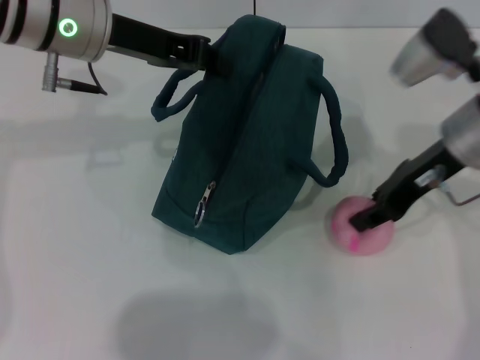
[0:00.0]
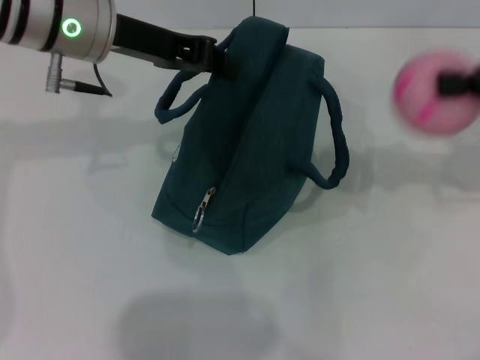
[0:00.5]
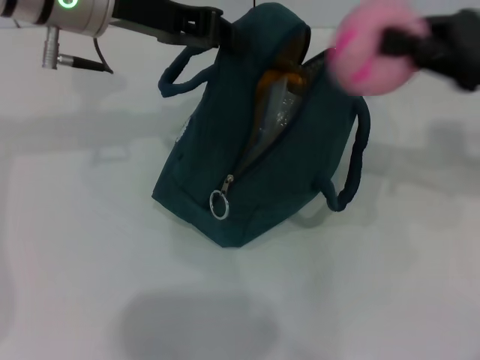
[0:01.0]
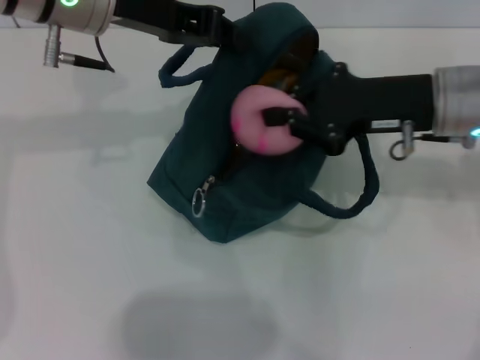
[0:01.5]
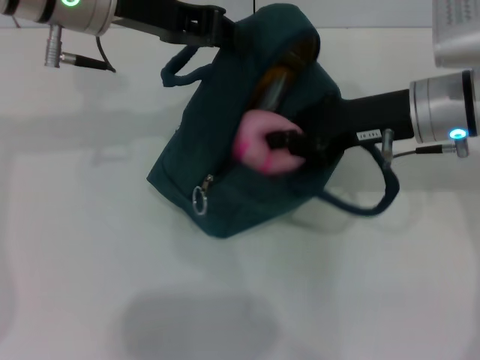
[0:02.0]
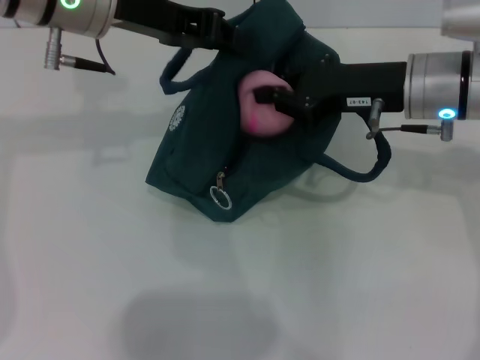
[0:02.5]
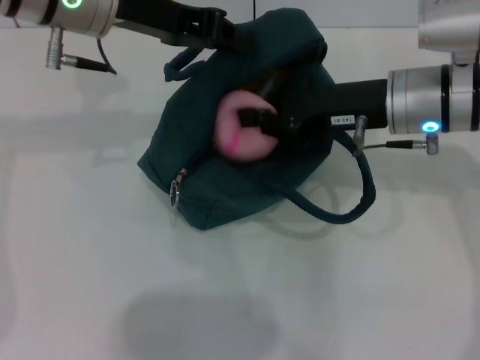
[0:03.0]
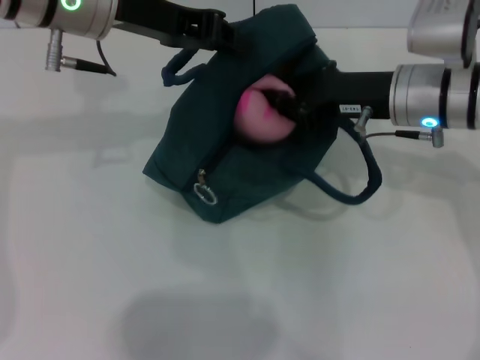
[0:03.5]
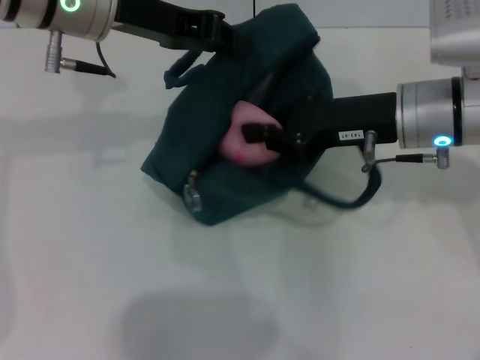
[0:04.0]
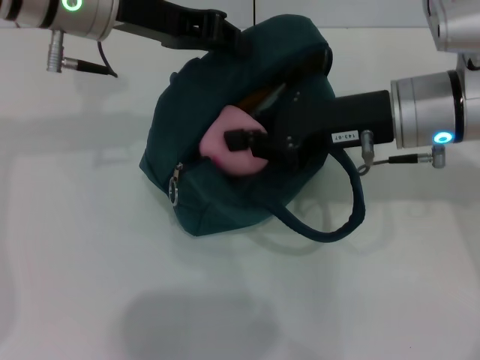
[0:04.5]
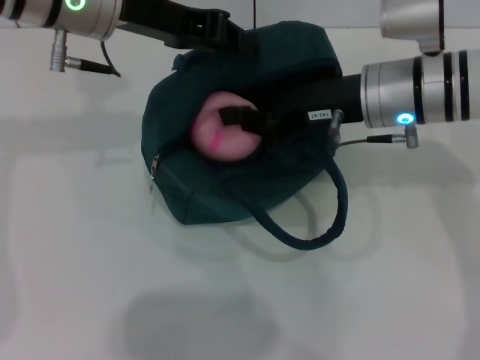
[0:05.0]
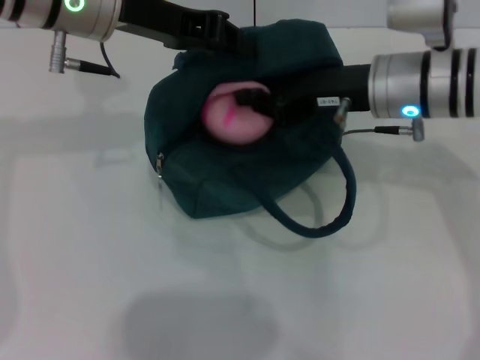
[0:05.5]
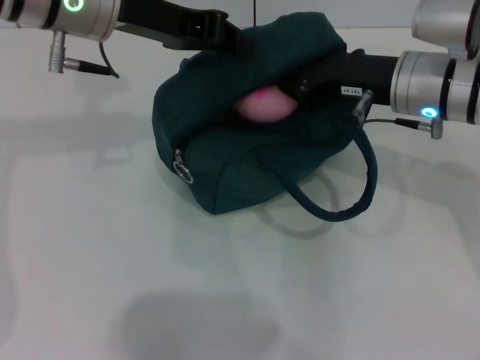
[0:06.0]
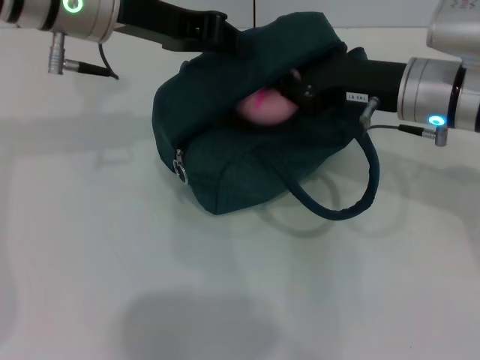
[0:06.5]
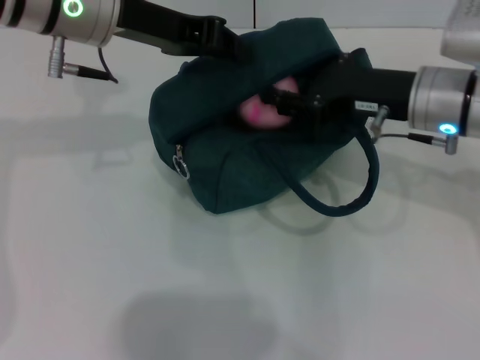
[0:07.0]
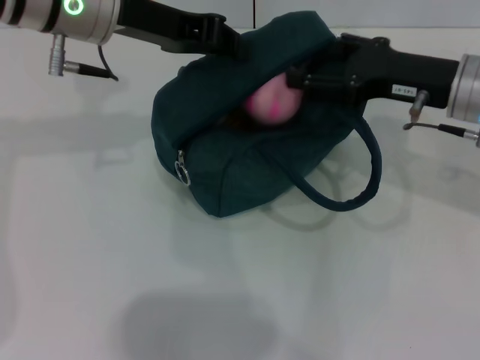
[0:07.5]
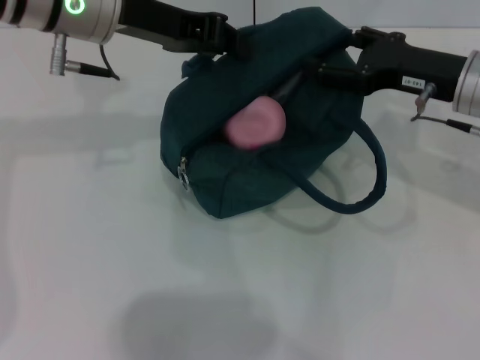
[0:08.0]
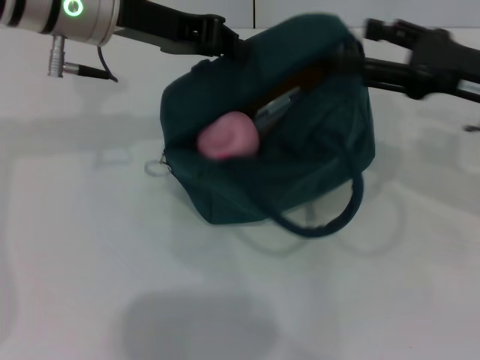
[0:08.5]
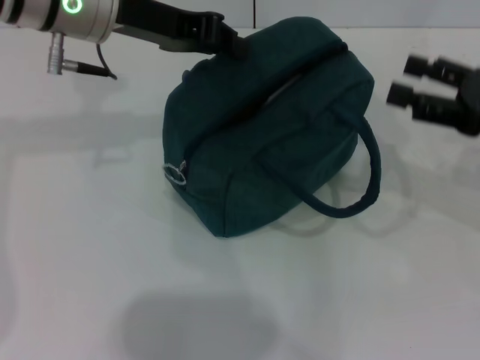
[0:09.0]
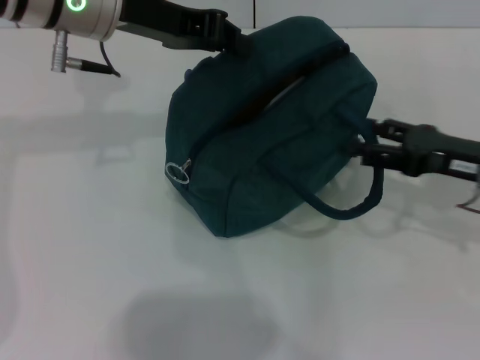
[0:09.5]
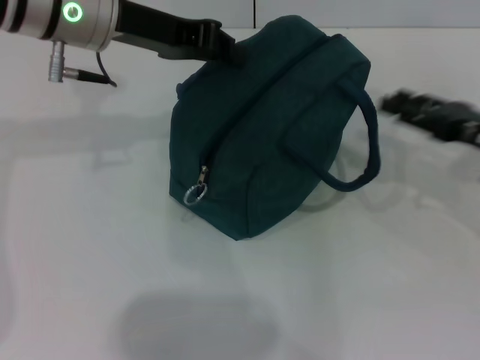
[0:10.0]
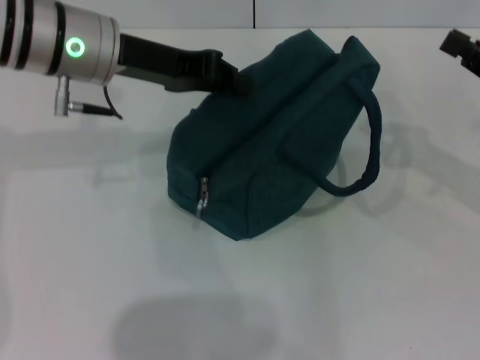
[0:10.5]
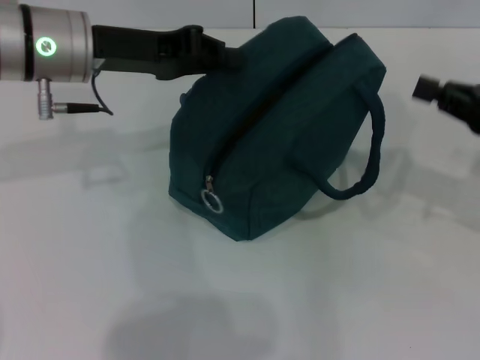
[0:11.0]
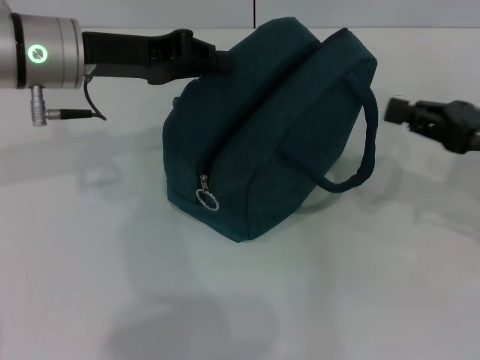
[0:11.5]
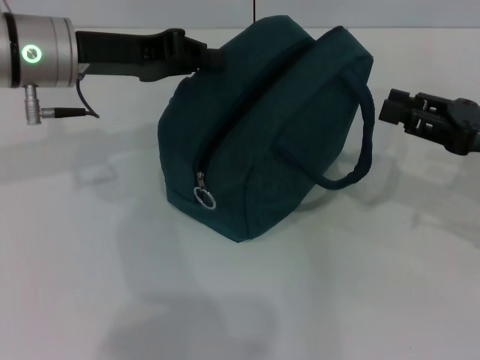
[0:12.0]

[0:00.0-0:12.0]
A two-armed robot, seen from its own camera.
0:00.0 to 0:02.0: The right gripper goes to the right and returns, some 15 cm each way, and closes its fingers.
0:02.0 to 0:06.0: The grippers stay close to where they were, moving slightly.
0:06.0 to 0:08.0: The right gripper is displaced to the right by about 5 cm, and opens.
0:08.0 to 0:10.0: The right gripper shifts approximately 10 cm to the right and downward.
0:10.0 to 0:12.0: The left gripper ends up some 5 cm from where it was; the right gripper closes.

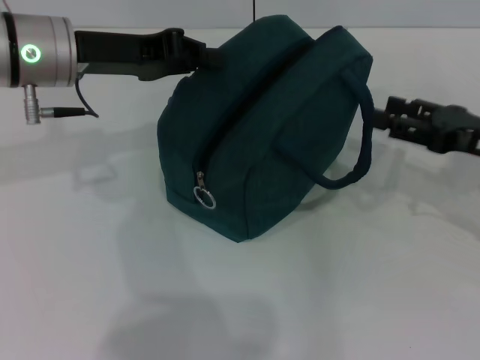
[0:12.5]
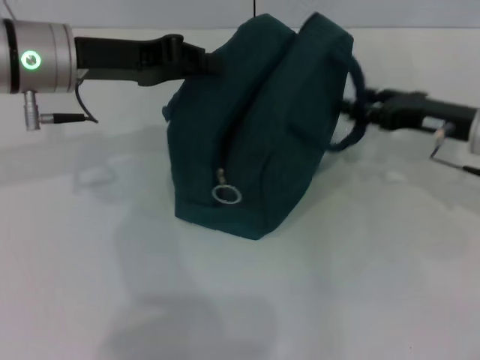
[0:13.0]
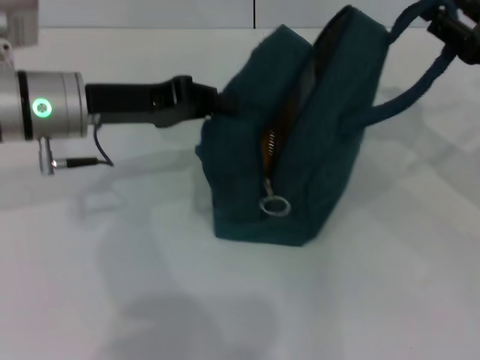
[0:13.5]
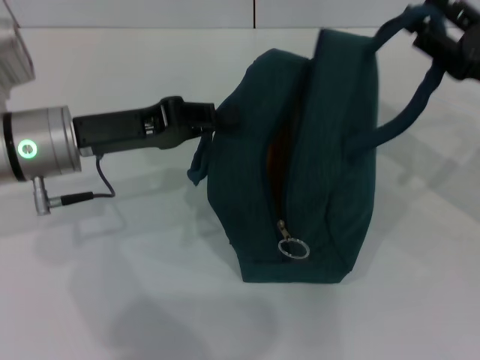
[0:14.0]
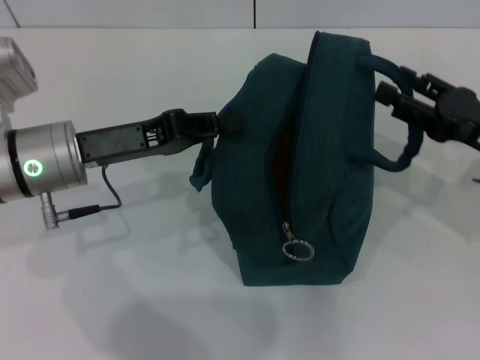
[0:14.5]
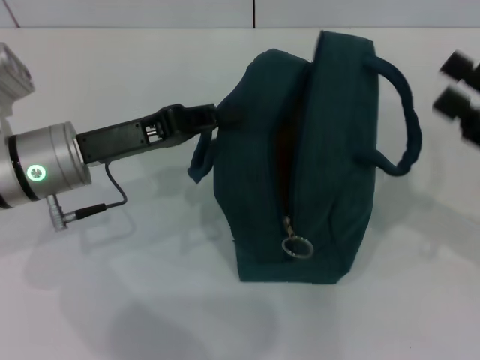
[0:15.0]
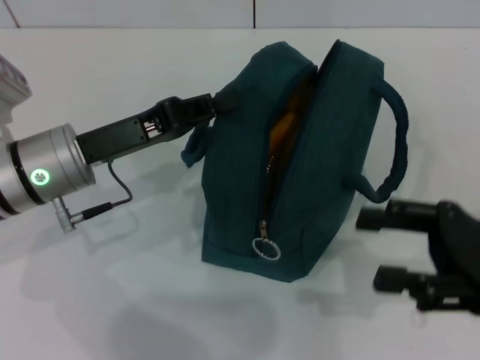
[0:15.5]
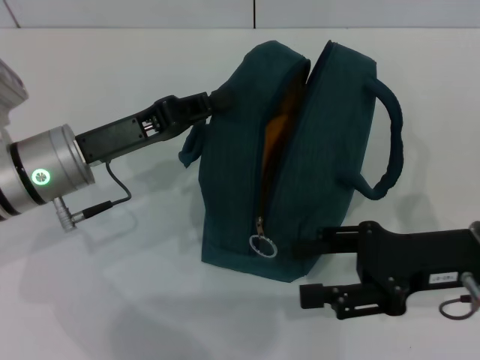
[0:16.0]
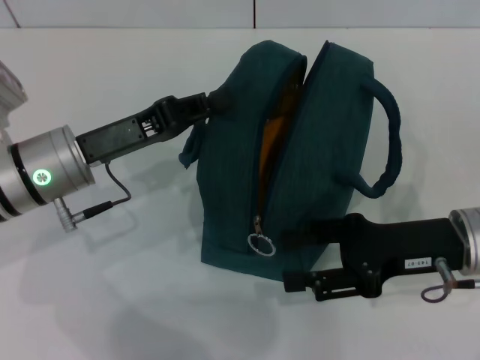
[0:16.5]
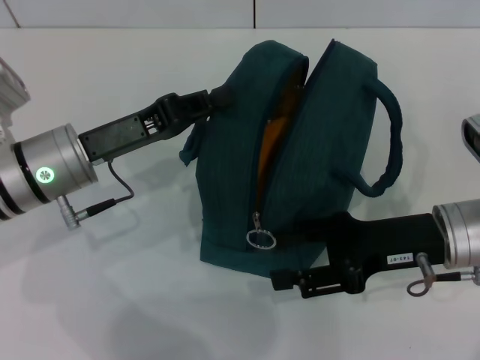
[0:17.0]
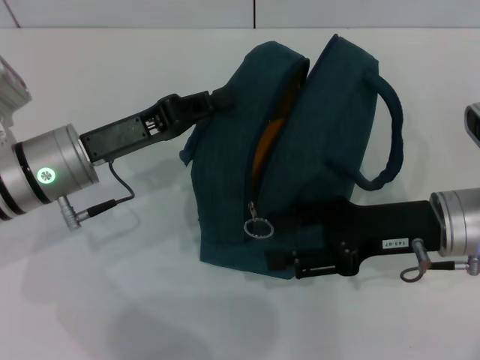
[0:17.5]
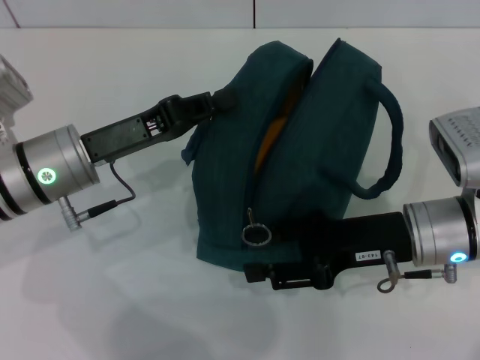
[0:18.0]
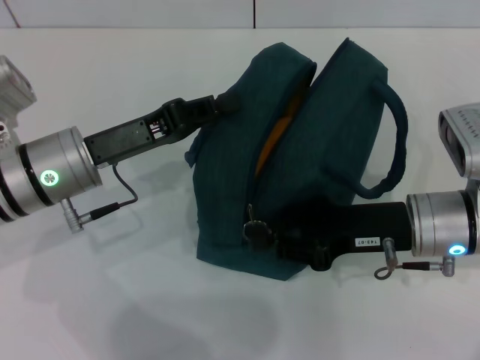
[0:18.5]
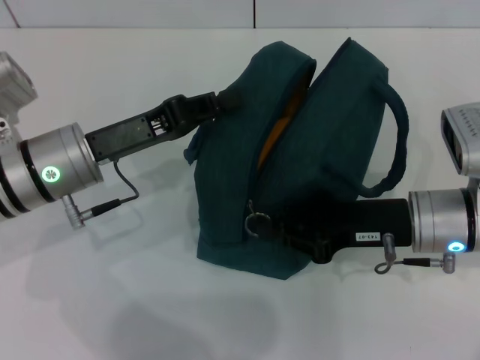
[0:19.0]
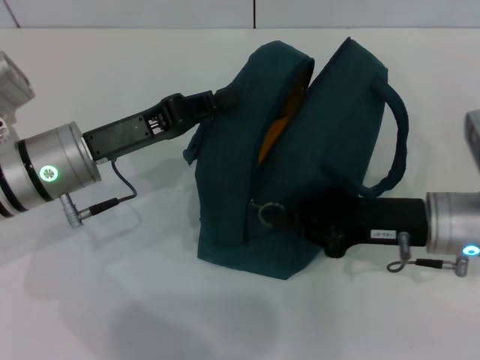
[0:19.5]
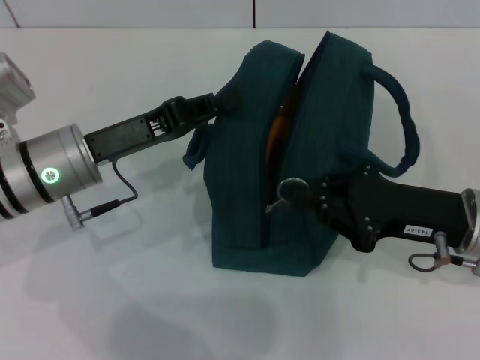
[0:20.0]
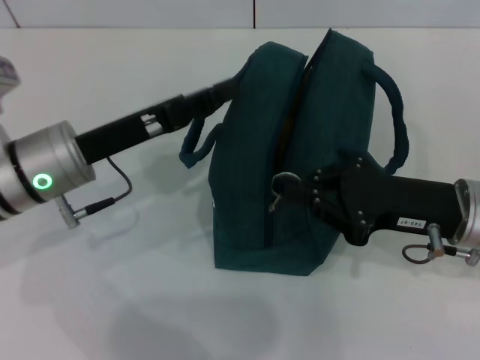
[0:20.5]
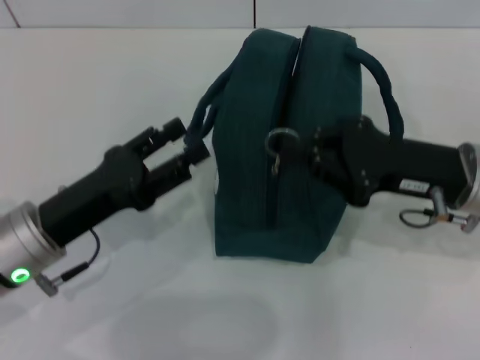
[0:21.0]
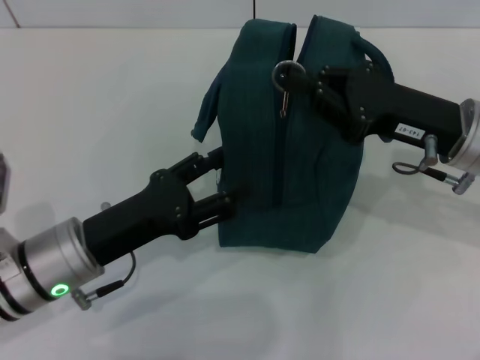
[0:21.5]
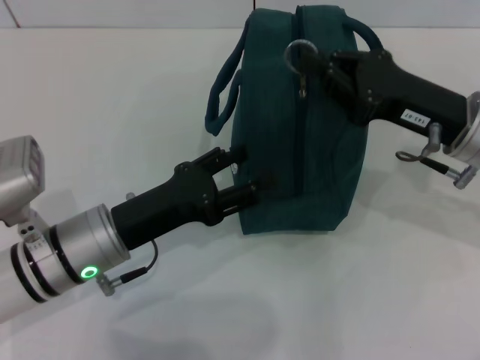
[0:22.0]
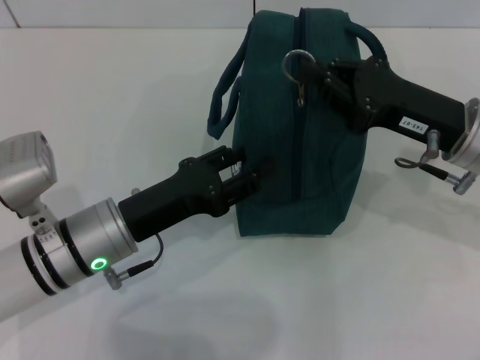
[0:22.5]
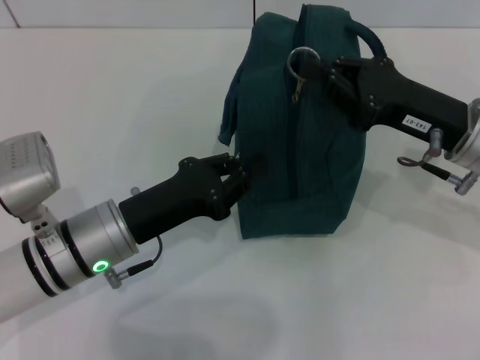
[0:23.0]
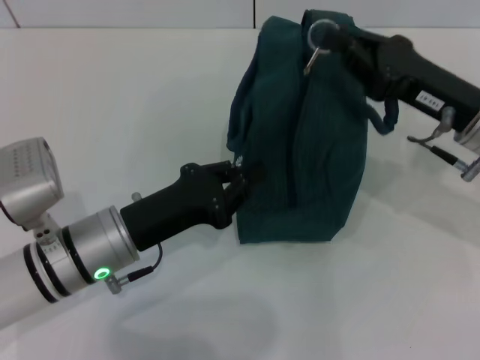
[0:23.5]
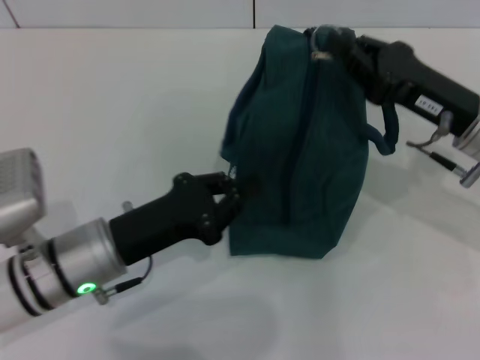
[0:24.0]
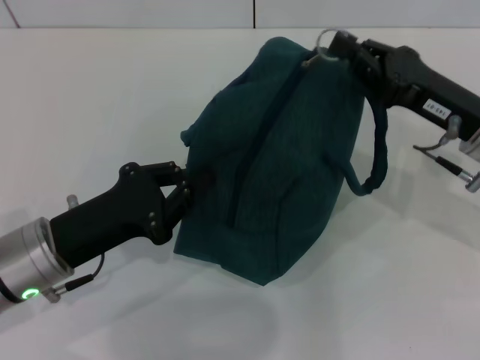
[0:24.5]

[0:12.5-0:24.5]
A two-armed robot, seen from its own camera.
Step, 0:12.5 to 0:14.5: Hold the lunch bag with your right hand.
0:12.5 to 0:14.5: The left gripper shifts approximately 10 cm downward and backward.
0:14.5 to 0:16.5: The right gripper is displaced to the left by approximately 5 cm.
0:16.5 to 0:18.5: The right gripper closes up.
0:18.5 to 0:20.5: The right gripper closes its fingers.
0:20.5 to 0:22.5: The left gripper shifts roughly 5 cm downward, and opens its fingers. The right gripper changes place by some 5 cm.
0:22.5 to 0:24.5: The left gripper shifts by about 5 cm, and closes up.

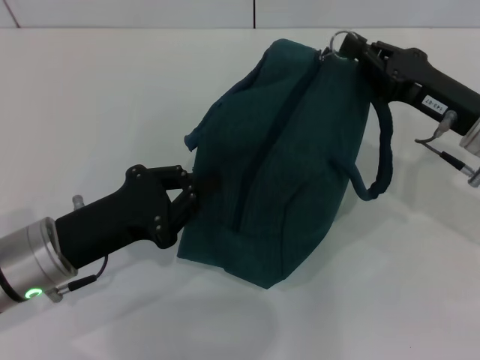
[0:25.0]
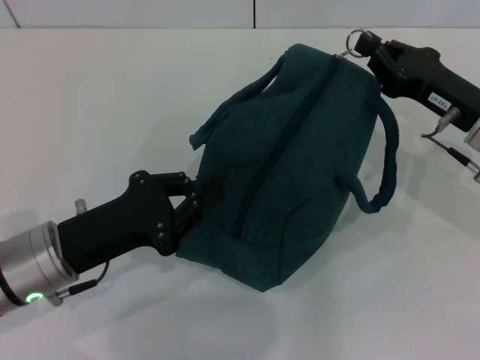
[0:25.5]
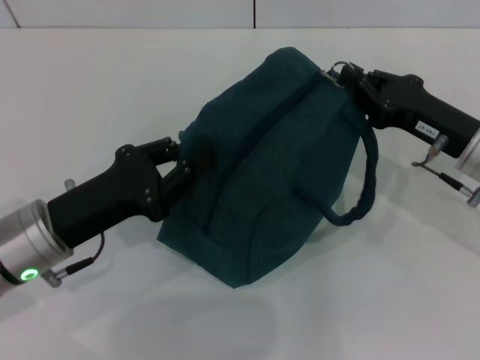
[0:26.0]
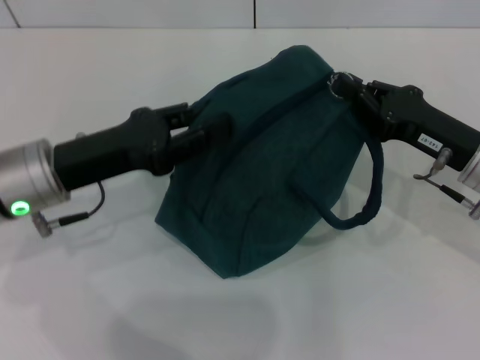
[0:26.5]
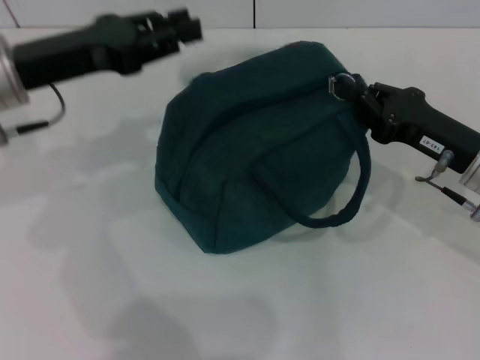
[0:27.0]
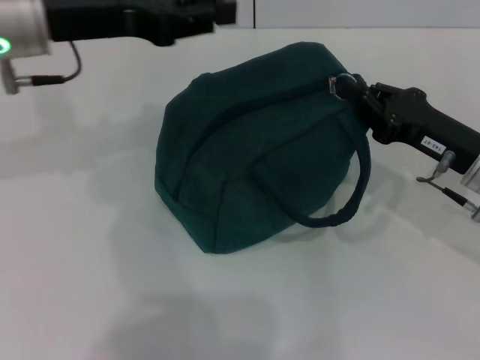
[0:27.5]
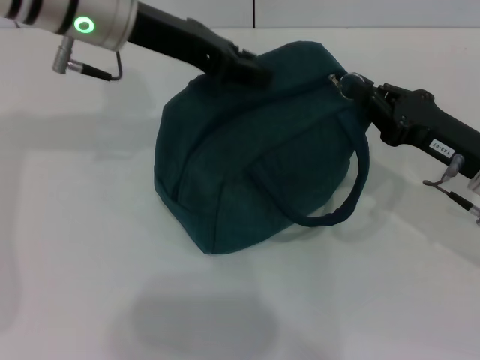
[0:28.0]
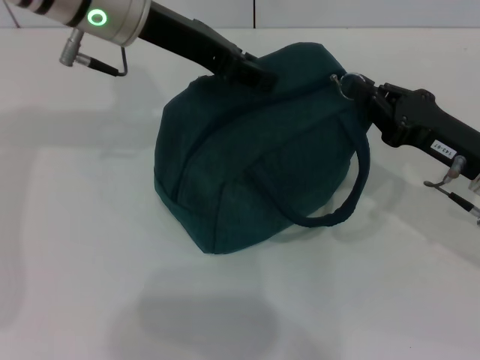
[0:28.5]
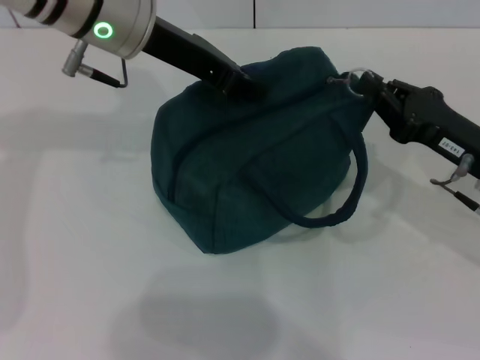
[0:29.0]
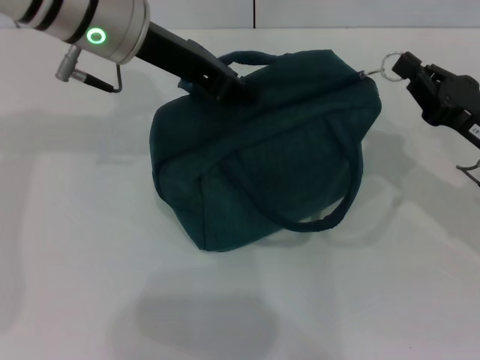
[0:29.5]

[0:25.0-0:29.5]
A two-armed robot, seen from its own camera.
0:25.0 to 0:27.0: The left gripper goes about 15 cm upward and forward.
0:27.0 to 0:29.5: The left gripper shifts roughly 10 cm to the right and forward.
